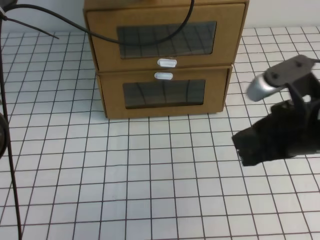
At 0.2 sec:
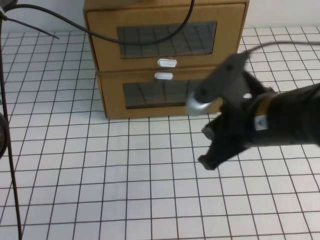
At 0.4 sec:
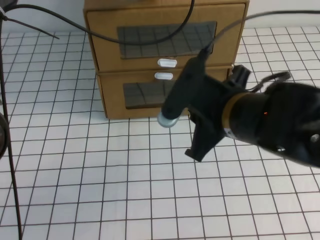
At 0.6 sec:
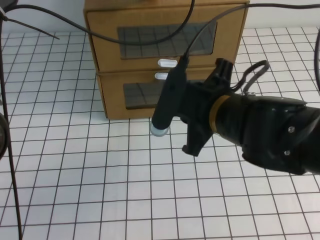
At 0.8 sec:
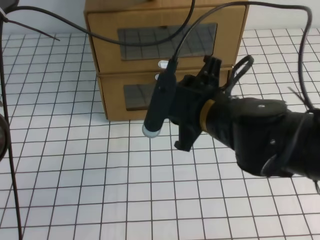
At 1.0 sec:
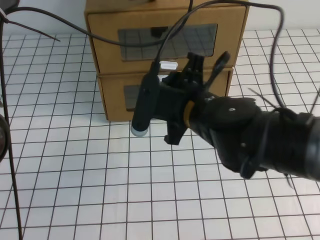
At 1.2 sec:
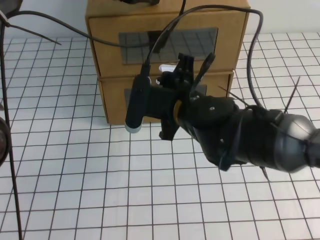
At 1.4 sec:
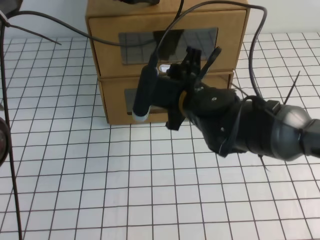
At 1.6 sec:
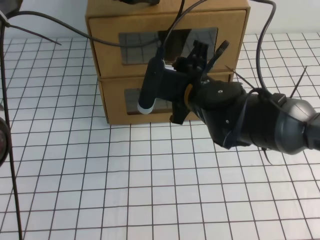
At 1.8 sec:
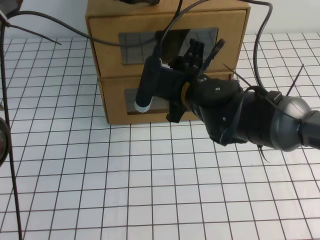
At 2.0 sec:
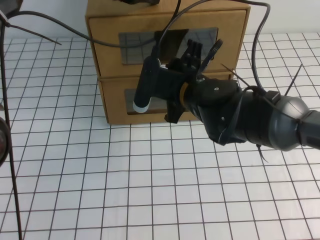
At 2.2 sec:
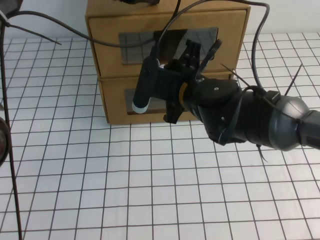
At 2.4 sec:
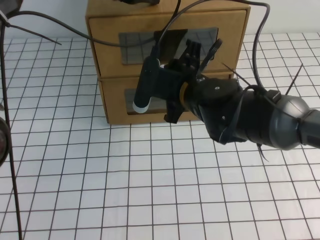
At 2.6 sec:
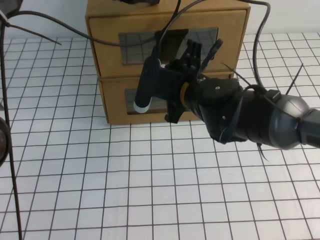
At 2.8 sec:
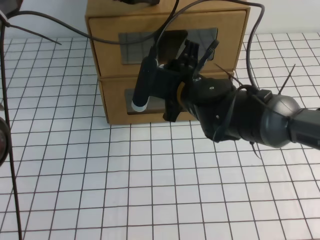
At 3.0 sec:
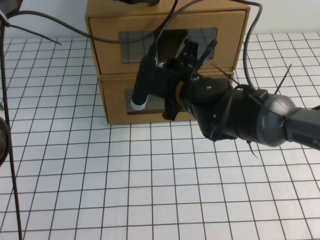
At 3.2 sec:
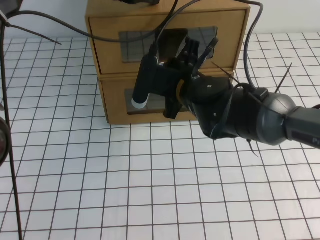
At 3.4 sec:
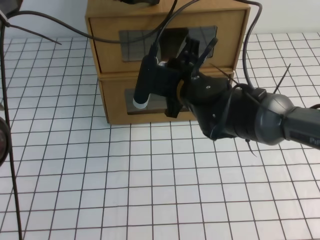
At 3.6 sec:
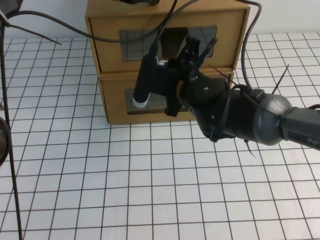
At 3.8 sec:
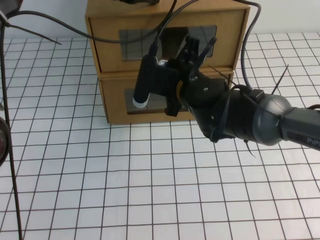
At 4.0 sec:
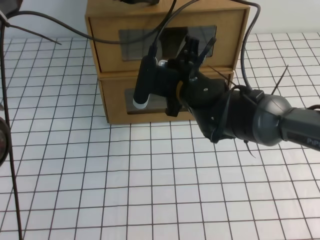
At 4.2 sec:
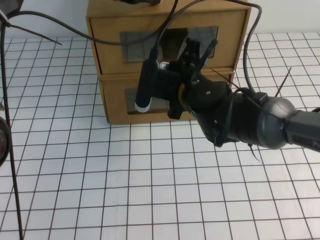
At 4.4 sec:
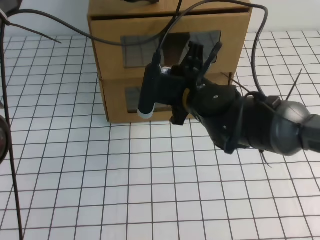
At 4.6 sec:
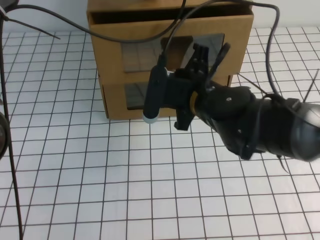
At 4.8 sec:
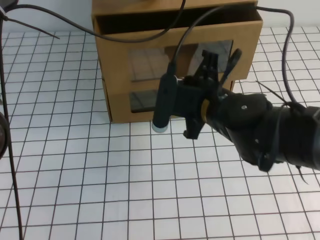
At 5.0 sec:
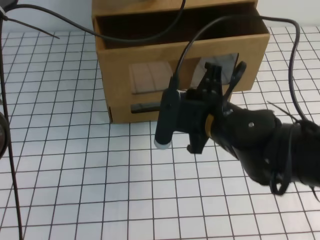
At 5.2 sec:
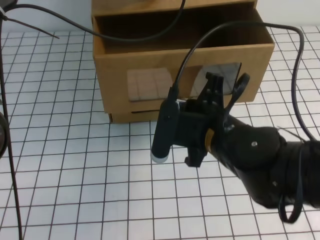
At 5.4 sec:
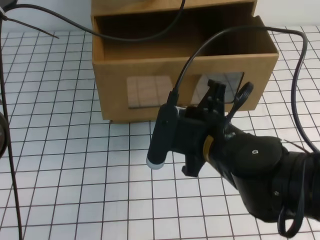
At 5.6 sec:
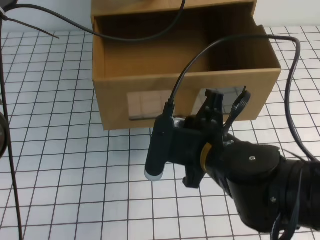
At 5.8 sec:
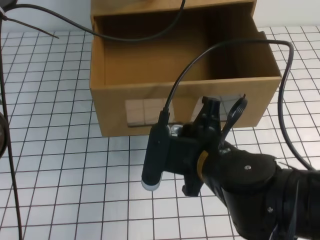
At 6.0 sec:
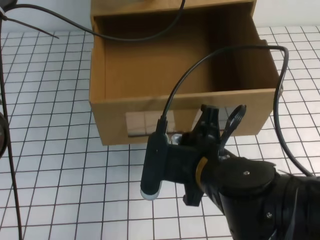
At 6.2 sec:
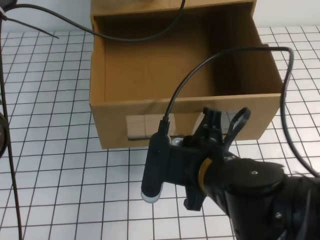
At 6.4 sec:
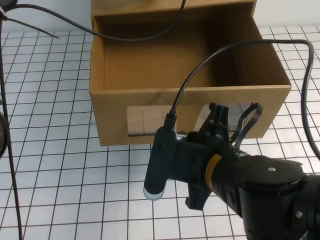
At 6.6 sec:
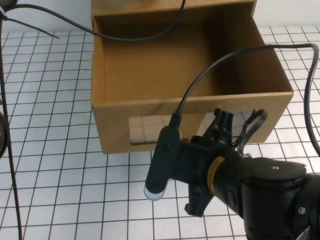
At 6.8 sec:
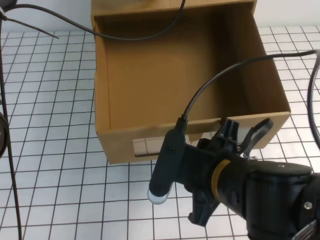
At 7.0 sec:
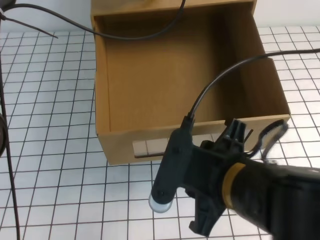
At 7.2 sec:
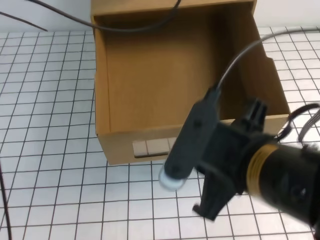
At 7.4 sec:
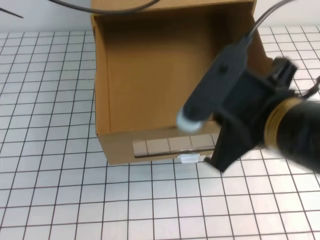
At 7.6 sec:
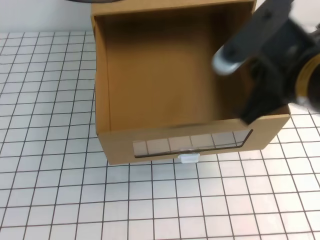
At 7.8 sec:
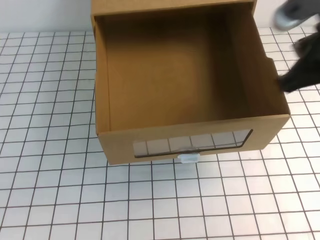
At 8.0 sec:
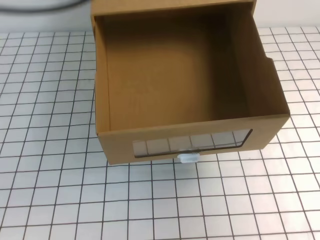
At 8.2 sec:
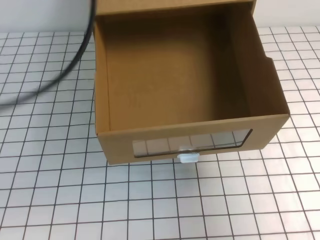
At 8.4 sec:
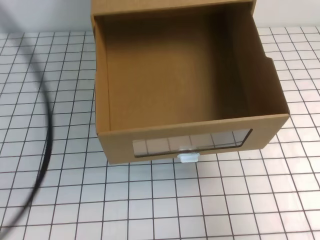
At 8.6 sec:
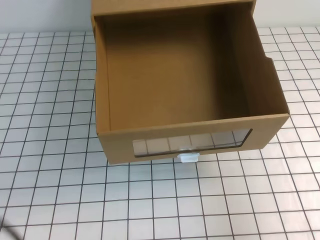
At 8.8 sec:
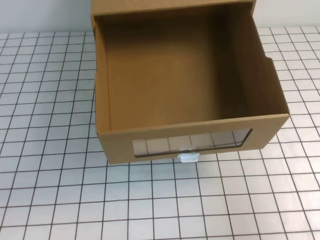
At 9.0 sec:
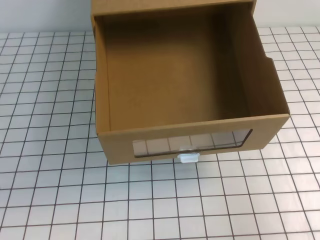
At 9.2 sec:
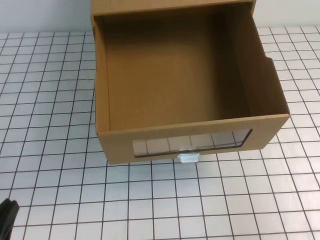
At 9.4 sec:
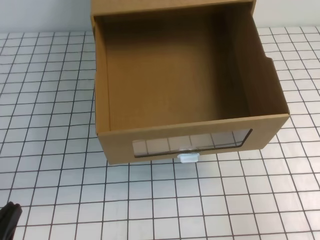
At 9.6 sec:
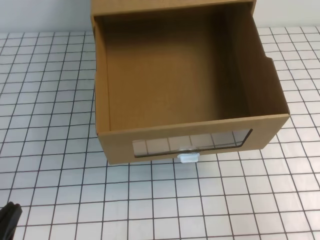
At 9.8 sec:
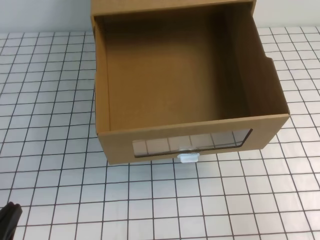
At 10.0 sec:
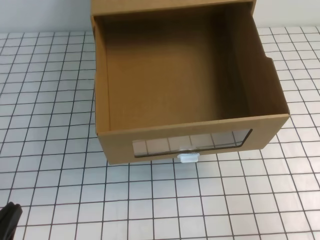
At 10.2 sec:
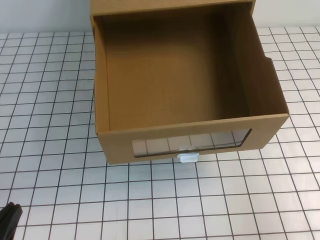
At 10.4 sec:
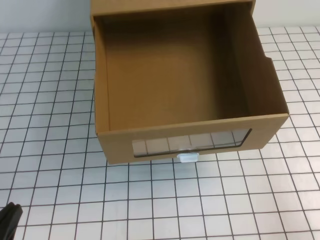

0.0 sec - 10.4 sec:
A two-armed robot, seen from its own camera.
Task of the whole recording: open the shoebox on the white tablecloth.
0.0 sec - 1.4 sec: The right gripper shifts roughly 20 cm to the left and forward, and opens.
1.4 sec - 3.0 sec: The grippers move only a little.
3.0 sec - 4.4 sec: The right gripper closes.
4.4 sec - 6.0 sec: The right gripper shifts approximately 15 cm backward.
6.0 sec - 7.4 sec: The left gripper travels upward by about 5 cm, while the right gripper goes roughly 10 cm upward and to the right, and opens, then closes again.
7.4 sec - 9.0 sec: The right gripper travels to the right by about 20 cm. Meanwhile the left gripper goes approximately 40 cm backward, downward and to the left.
9.0 sec - 10.4 sec: Both grippers move downward, roughly 5 cm.

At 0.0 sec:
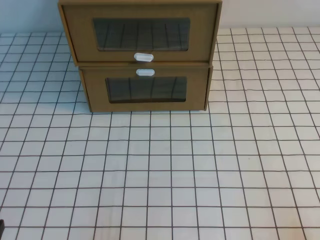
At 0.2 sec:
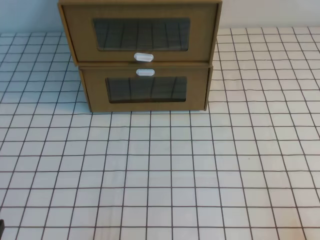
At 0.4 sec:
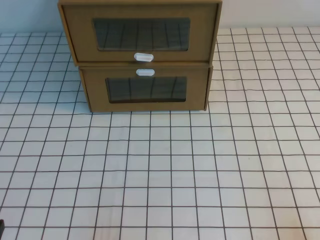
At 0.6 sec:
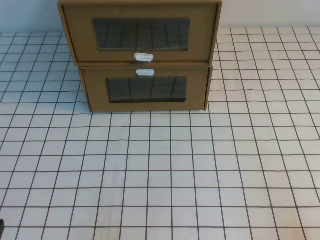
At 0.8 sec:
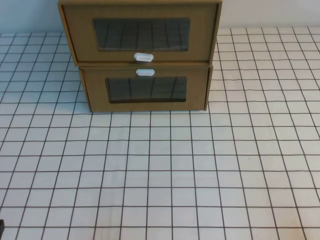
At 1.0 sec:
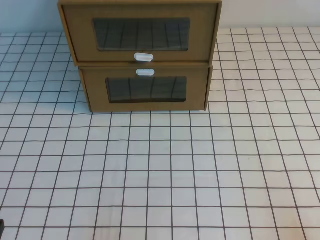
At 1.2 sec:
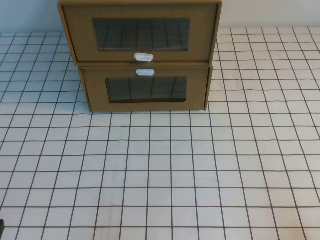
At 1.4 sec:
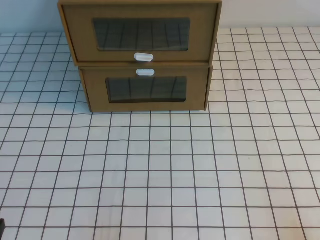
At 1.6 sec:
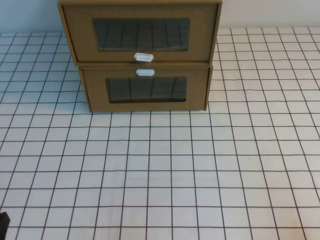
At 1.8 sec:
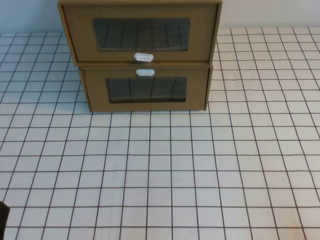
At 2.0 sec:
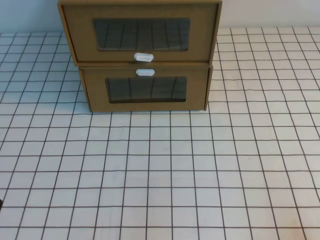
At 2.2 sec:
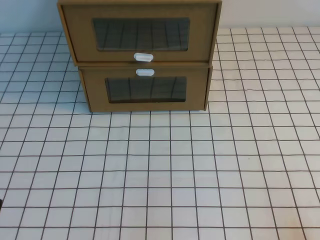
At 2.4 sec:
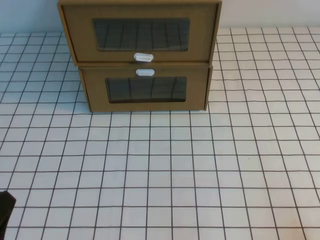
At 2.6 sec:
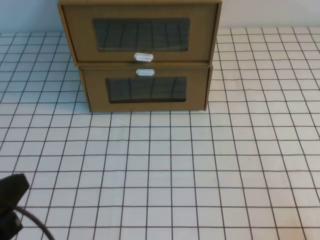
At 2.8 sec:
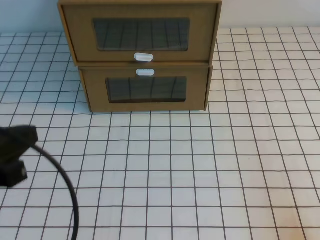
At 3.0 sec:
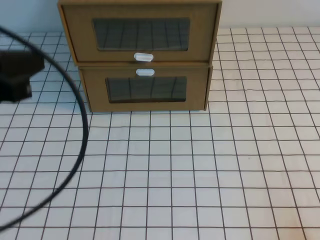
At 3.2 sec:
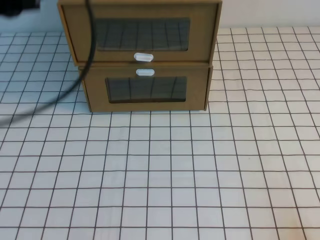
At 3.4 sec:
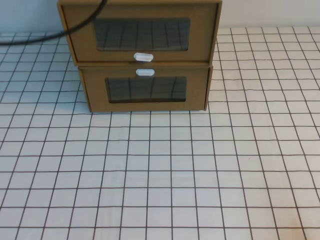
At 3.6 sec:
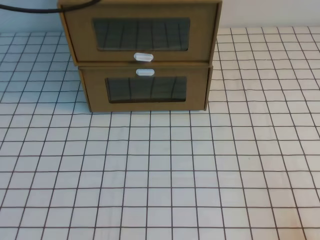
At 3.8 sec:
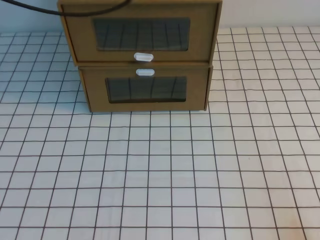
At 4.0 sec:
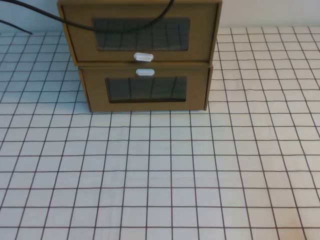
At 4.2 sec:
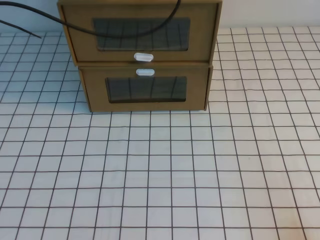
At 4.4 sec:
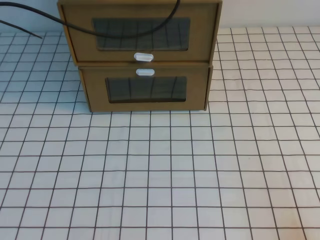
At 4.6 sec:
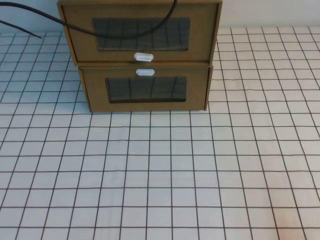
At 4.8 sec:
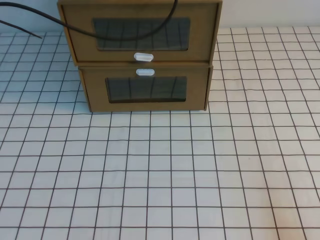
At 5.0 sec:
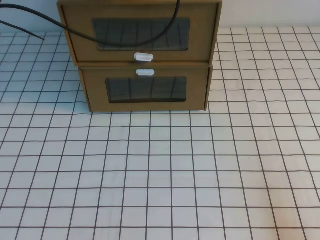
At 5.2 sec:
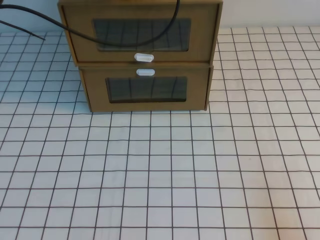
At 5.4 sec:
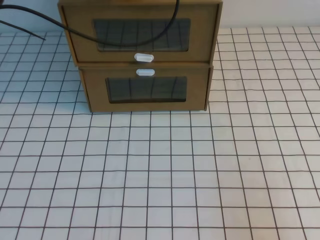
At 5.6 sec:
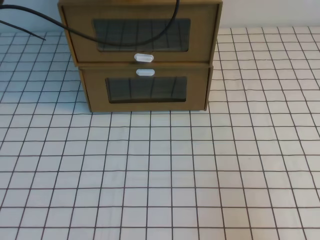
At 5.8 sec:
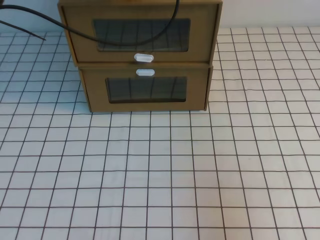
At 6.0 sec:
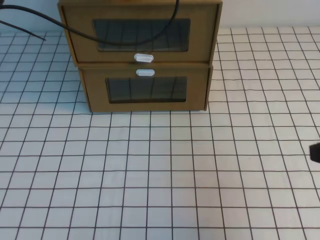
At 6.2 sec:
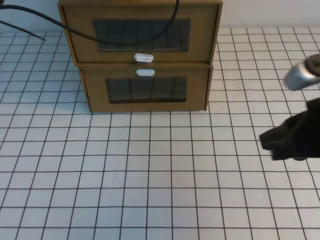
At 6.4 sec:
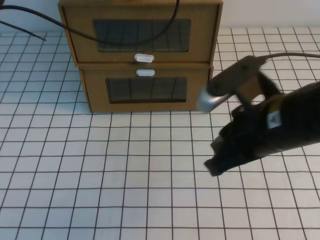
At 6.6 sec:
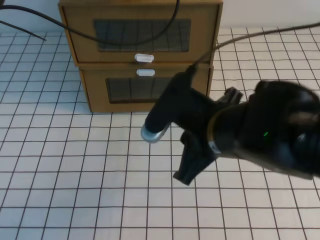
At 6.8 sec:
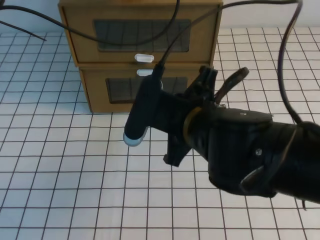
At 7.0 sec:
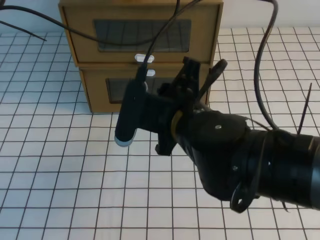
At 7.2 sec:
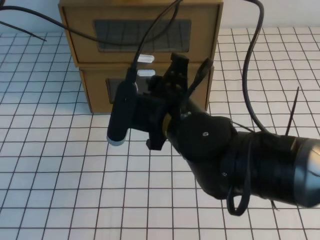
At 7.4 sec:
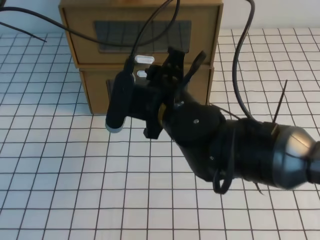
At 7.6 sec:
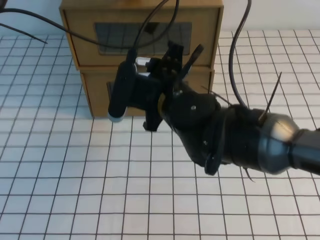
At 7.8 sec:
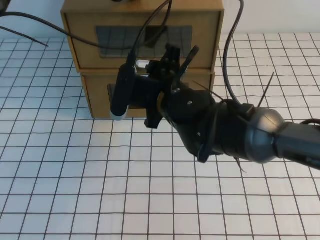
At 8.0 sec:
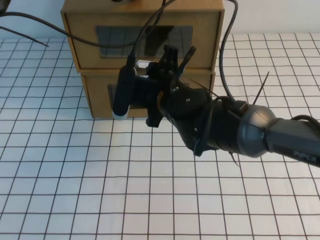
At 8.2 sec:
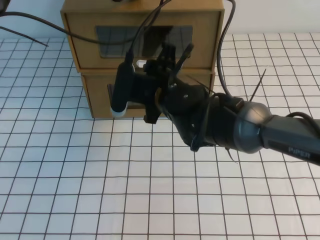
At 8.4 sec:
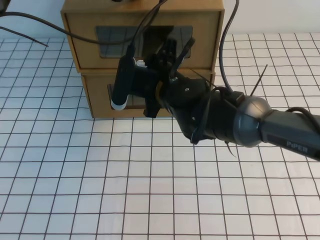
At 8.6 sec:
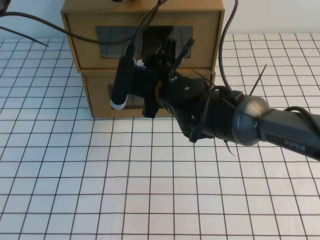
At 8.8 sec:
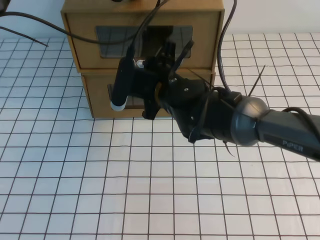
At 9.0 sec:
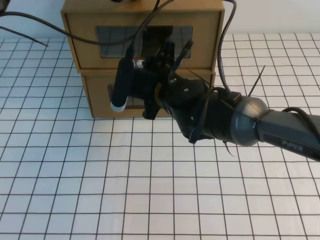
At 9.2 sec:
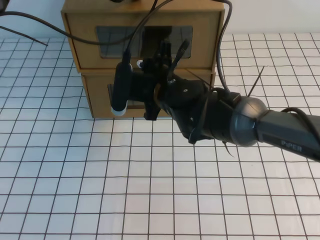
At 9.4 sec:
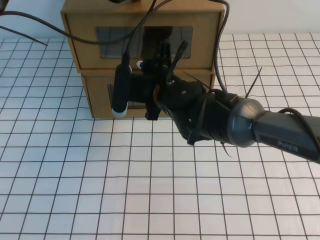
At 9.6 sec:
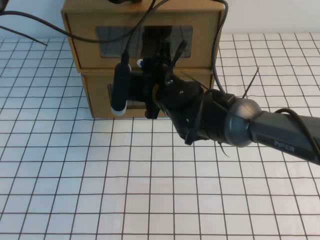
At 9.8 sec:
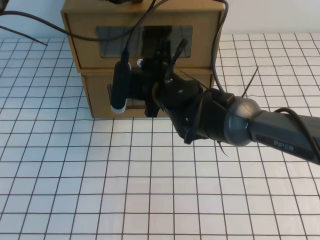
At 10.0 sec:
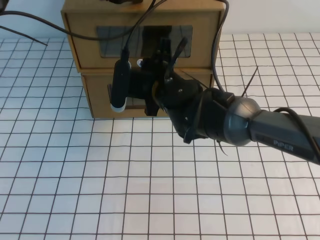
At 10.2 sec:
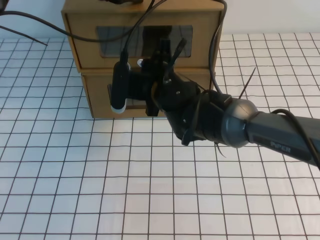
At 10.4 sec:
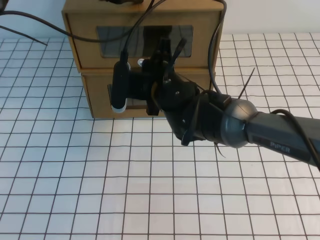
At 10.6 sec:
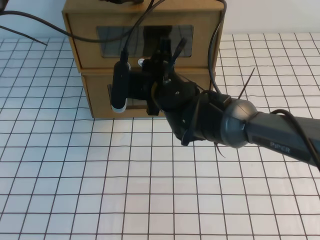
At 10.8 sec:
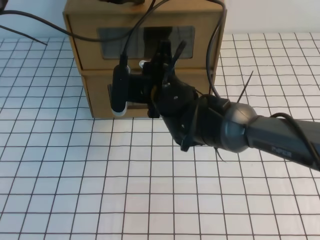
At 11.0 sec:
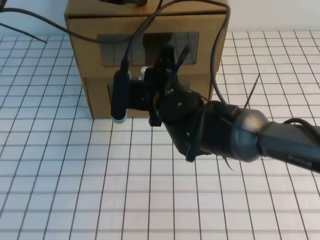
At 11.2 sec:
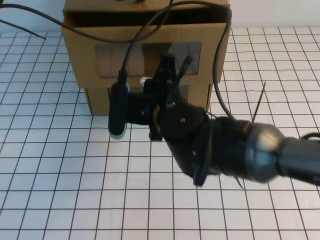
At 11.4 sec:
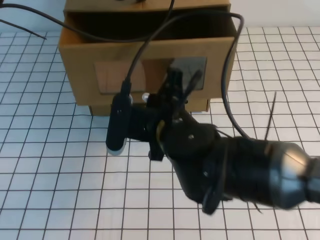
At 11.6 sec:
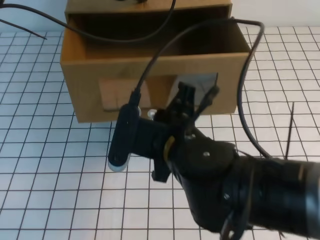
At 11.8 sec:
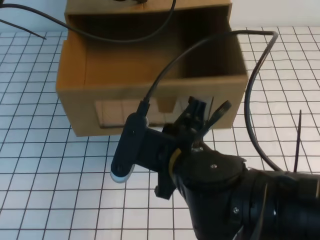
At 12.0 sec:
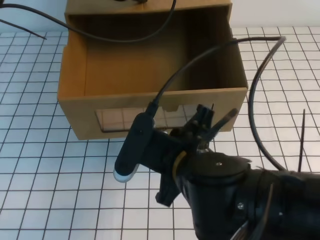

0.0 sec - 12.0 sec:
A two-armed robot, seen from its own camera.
Task of the whole recording: open the shoebox on the white tablecloth.
1.6 sec - 3.0 sec: The left gripper is displaced upward and forward by about 20 cm.
3.0 sec - 4.4 sec: The left gripper moves forward, roughly 30 cm.
4.4 sec - 6.0 sec: The right gripper travels upward and forward by approximately 15 cm.
6.0 sec - 7.6 sec: The right gripper is displaced to the left and forward by about 30 cm, and opens its fingers.
7.6 sec - 9.0 sec: The right gripper is displaced forward by approximately 10 cm.
9.0 sec - 10.4 sec: The right gripper closes its fingers.
10.4 sec - 12.0 sec: The right gripper shifts about 20 cm backward.
